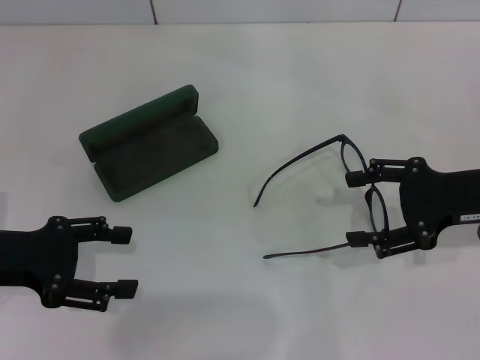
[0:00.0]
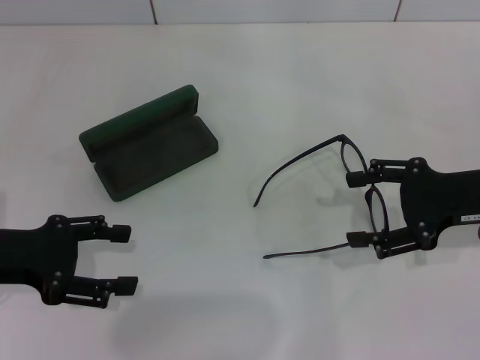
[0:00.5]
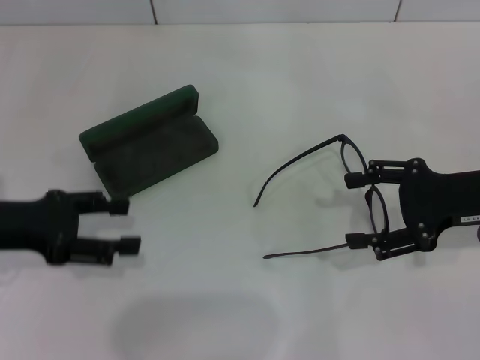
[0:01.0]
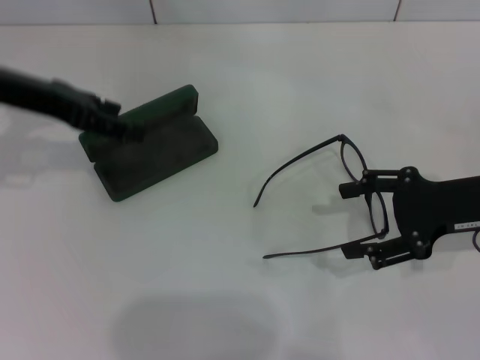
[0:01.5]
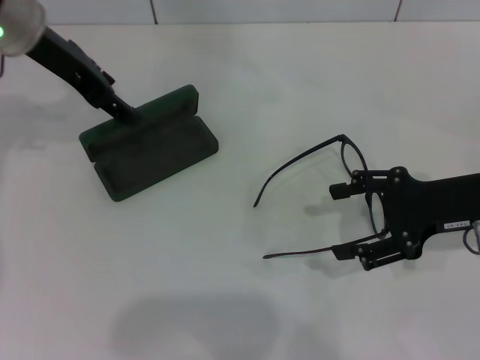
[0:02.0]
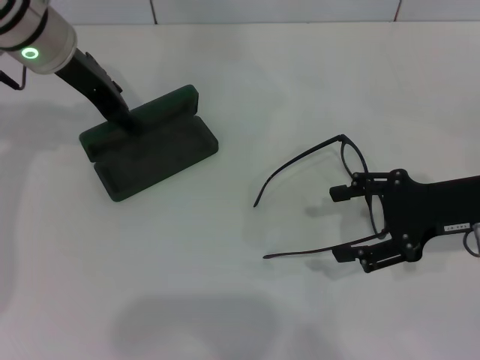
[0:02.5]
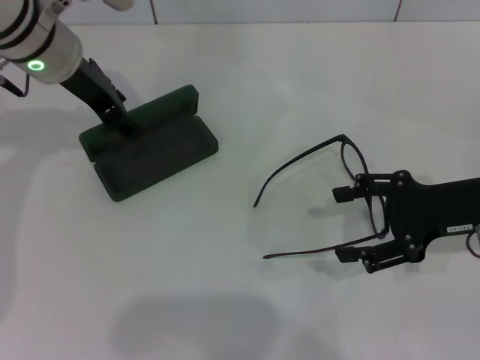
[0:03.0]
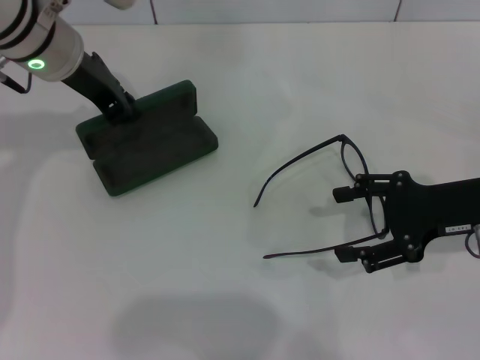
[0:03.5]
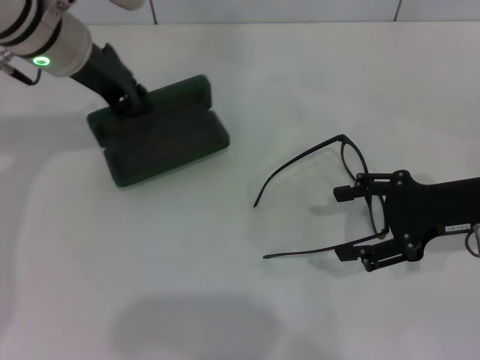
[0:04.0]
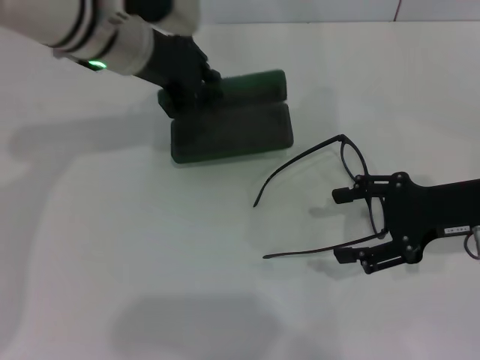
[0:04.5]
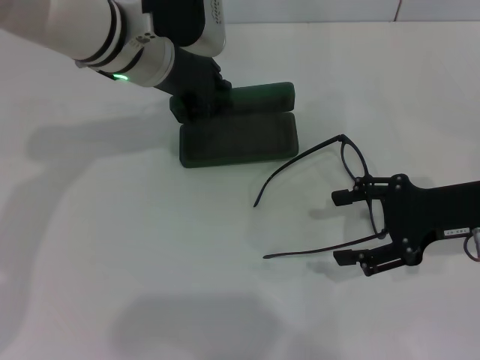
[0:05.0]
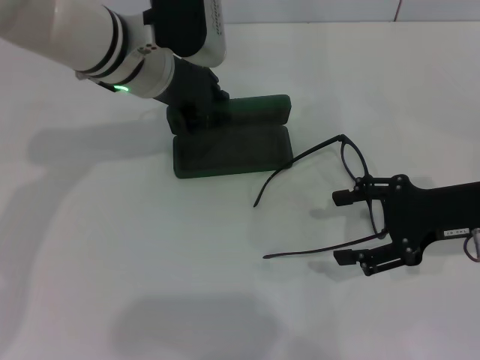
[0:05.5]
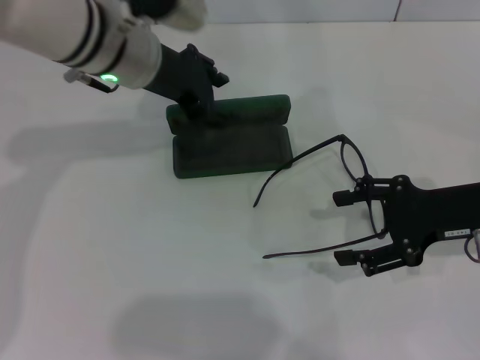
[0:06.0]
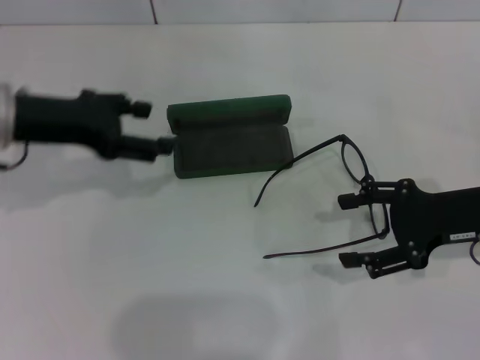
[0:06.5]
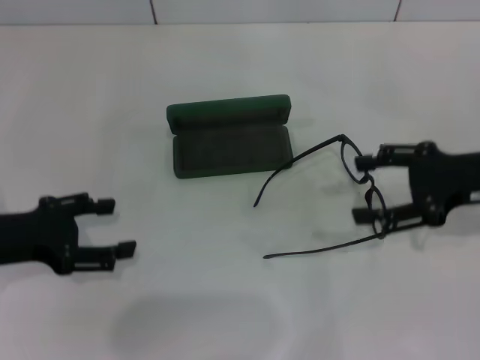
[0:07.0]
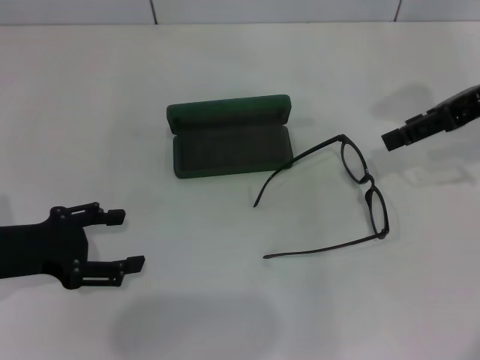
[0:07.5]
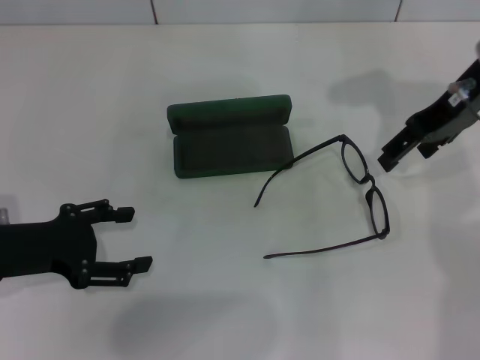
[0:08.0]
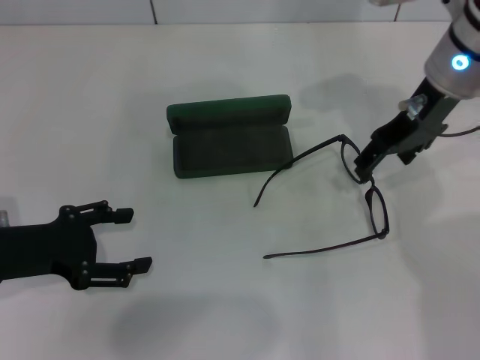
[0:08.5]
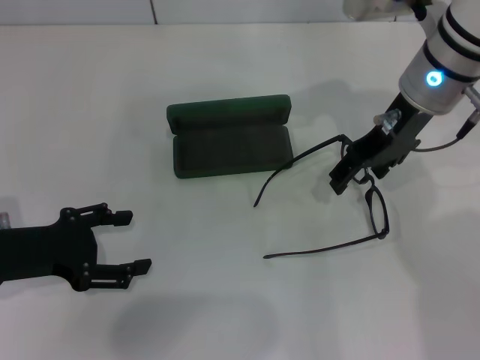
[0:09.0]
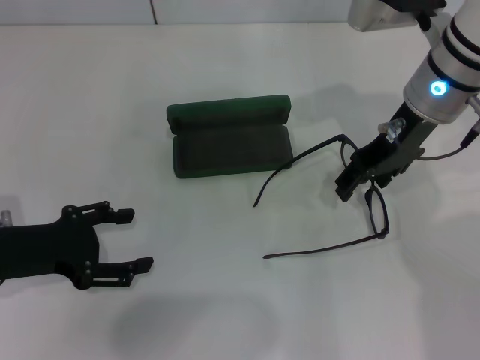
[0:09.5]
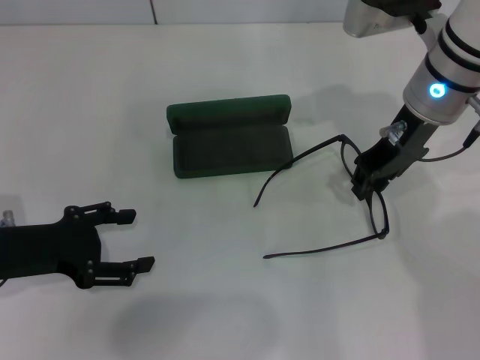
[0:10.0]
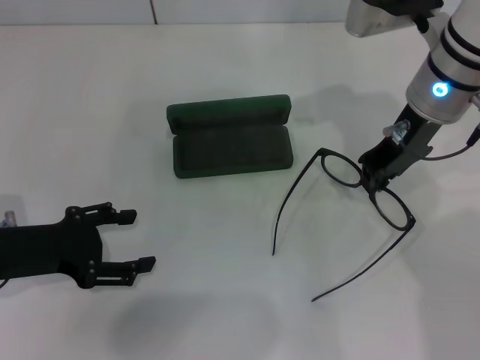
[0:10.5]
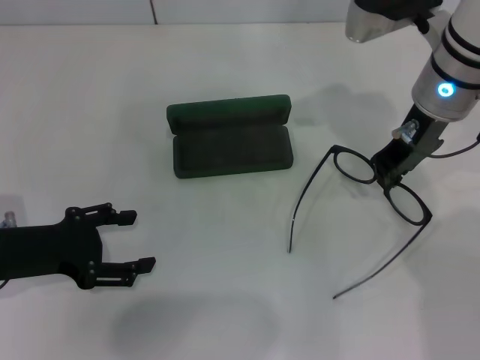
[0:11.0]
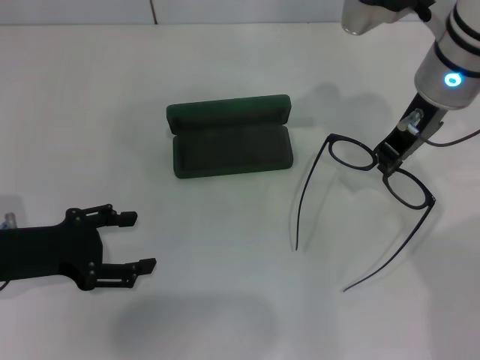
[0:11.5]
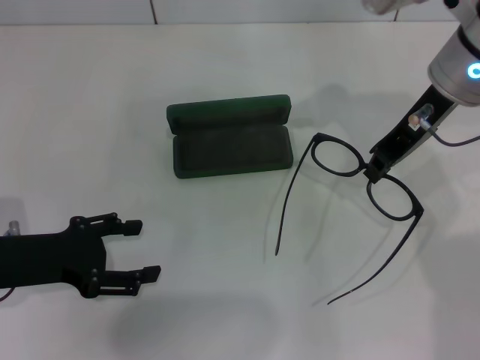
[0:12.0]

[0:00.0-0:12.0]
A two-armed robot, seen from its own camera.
Step, 0:00.0 to 0:03.0: Grab the glasses case with your left hand.
Step, 0:03.5 to 0:05.5: Place the glasses case in the center of the table with your left hand.
Step, 0:06.0 to 0:10.5: Grab the eyeglass frame with your right hand.
0:00.0 to 0:02.0: The left gripper heads forward, upward and to the right, covering roughly 25 cm.
0:02.0 to 0:04.0: The left gripper closes its fingers.
0:06.0 to 0:08.0: The left gripper heads to the left, backward and downward, covering some 25 cm, and opens its fingers. The right gripper heads upward, forward and to the left, covering approximately 15 cm.
0:08.0 to 0:10.0: The right gripper travels to the left by some 5 cm, and closes up.
0:10.0 to 0:12.0: The right gripper closes.

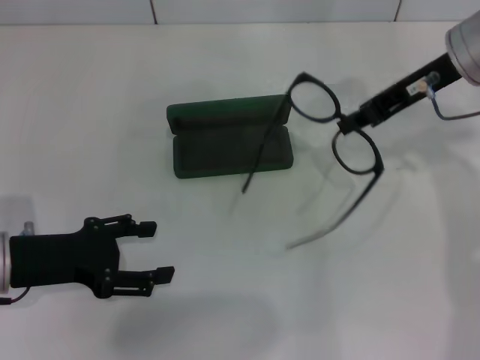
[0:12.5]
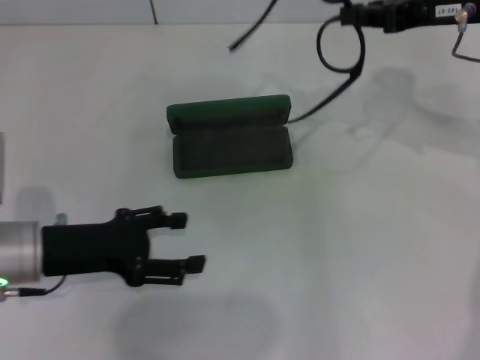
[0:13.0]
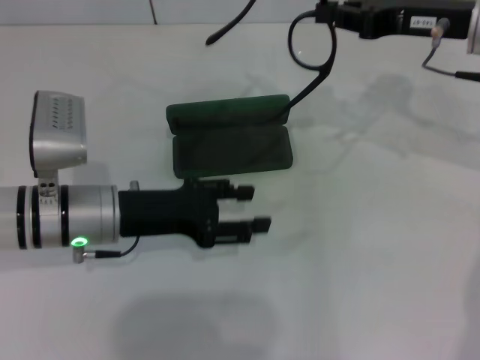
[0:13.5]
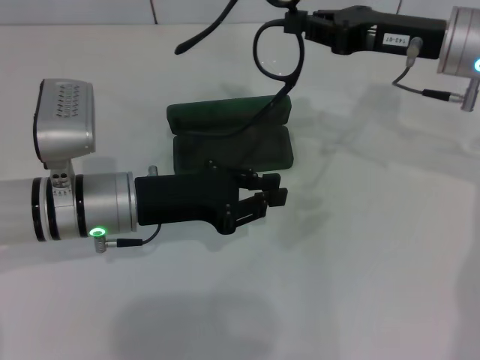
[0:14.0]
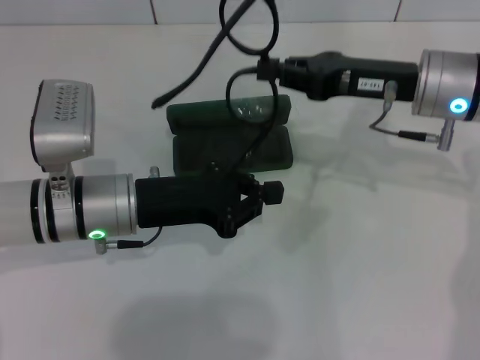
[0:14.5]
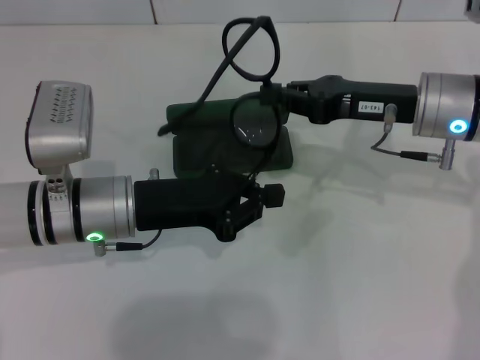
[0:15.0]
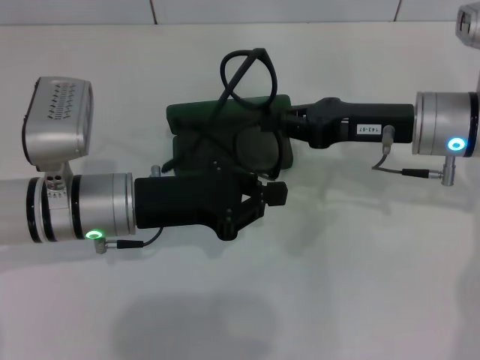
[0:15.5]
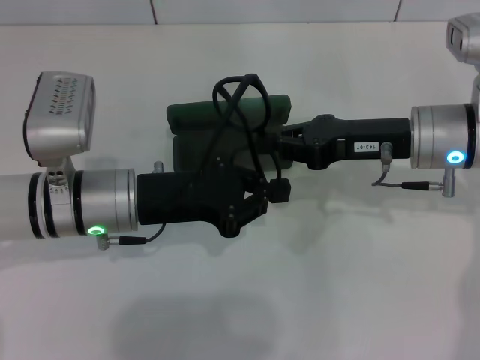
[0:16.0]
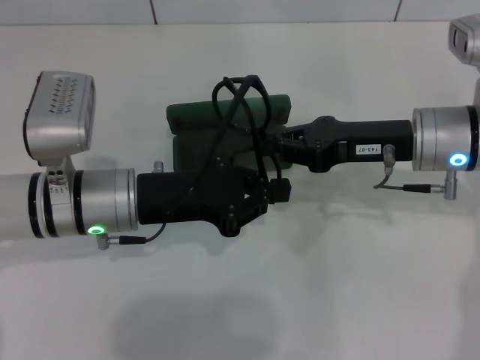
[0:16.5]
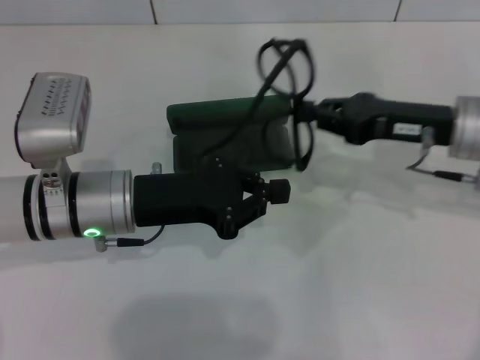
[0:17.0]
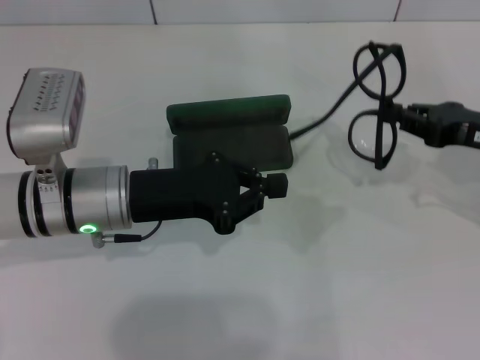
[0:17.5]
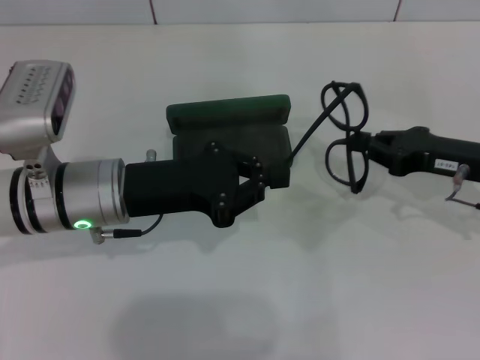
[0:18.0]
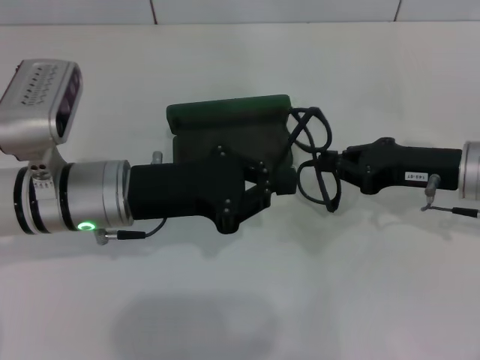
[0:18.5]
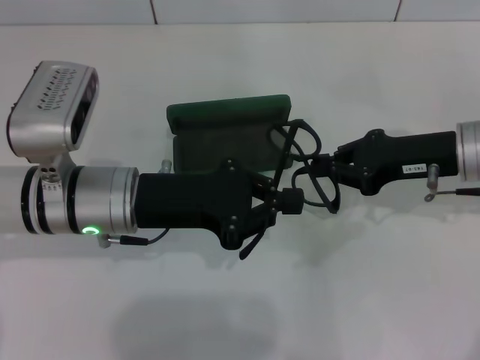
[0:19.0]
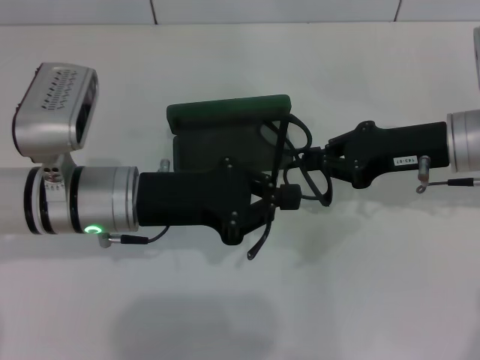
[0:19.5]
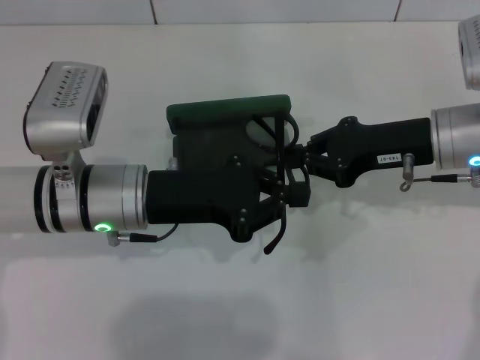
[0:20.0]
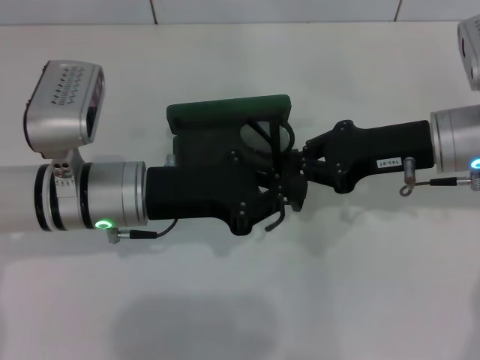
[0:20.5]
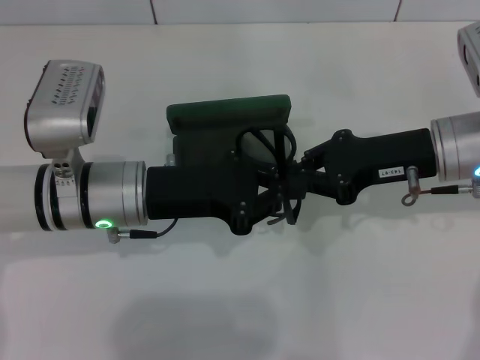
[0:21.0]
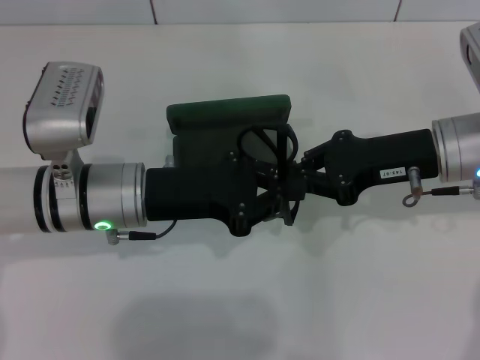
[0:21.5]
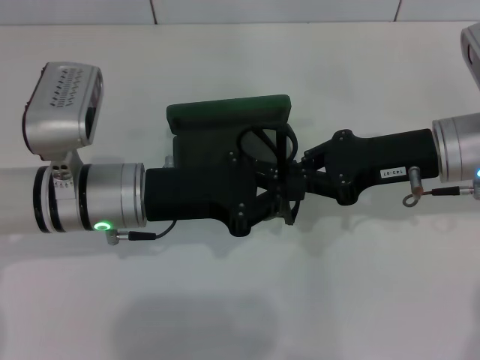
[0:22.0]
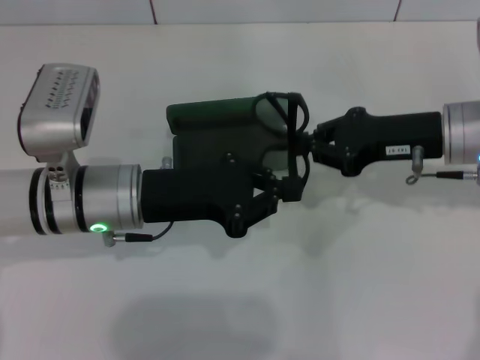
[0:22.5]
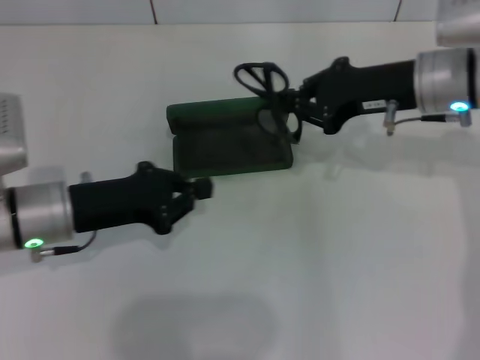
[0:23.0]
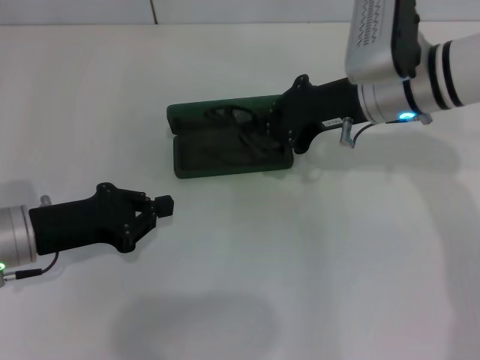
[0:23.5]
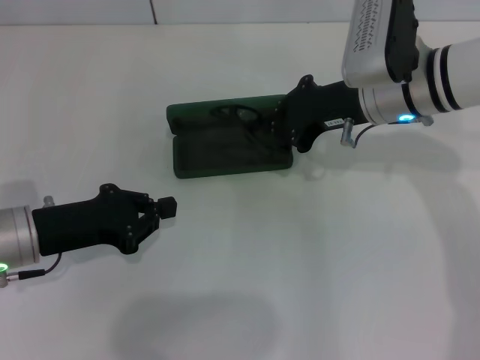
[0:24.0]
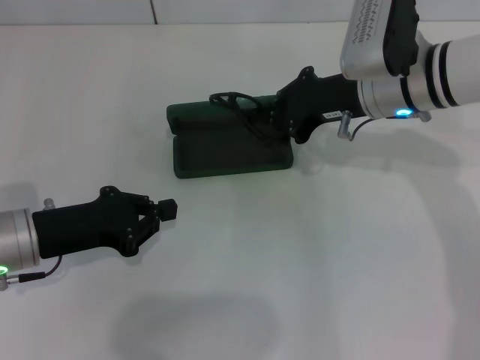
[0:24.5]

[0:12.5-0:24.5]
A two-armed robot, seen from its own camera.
Step, 0:12.5 to 0:22.0: Fold the frame with your left hand.
0:12.5 to 0:14.5: The right gripper heads downward, covering approximately 5 cm, while the left gripper shifts approximately 10 cm to the right and forward, and closes up.
0:16.5 to 0:18.5: The right gripper travels to the right by approximately 5 cm.
0:18.5 to 0:20.5: The right gripper ends up about 5 cm from where it was.
0:20.5 to 0:22.5: The grippers make only small movements.
0:22.5 to 0:24.5: Both grippers move to the left, some 10 cm.

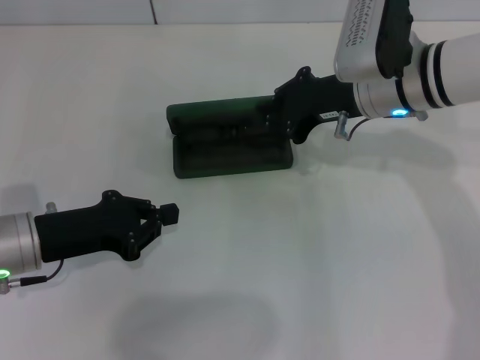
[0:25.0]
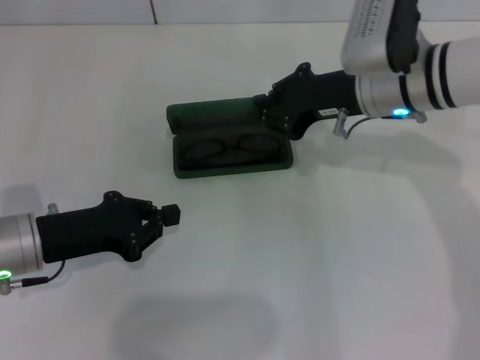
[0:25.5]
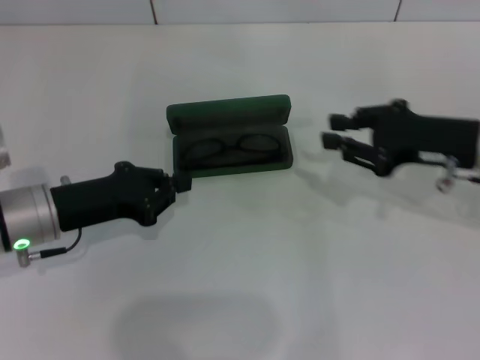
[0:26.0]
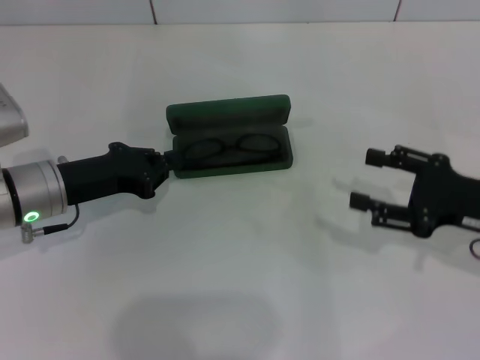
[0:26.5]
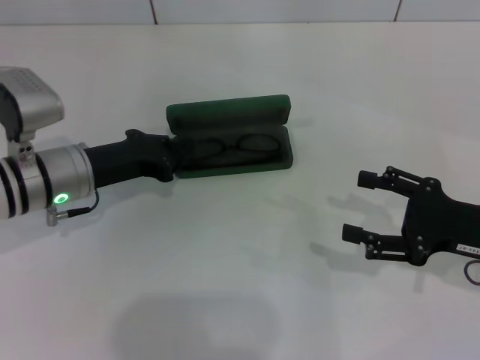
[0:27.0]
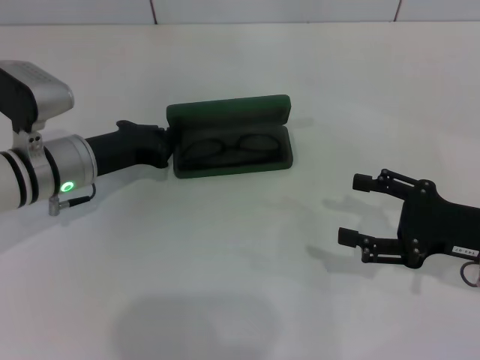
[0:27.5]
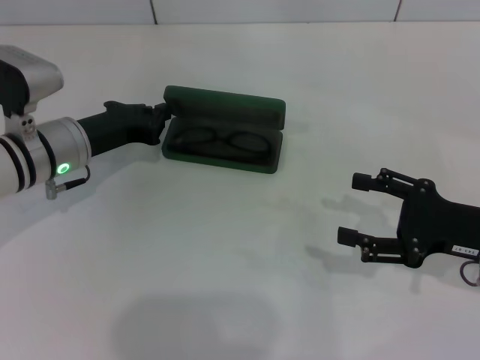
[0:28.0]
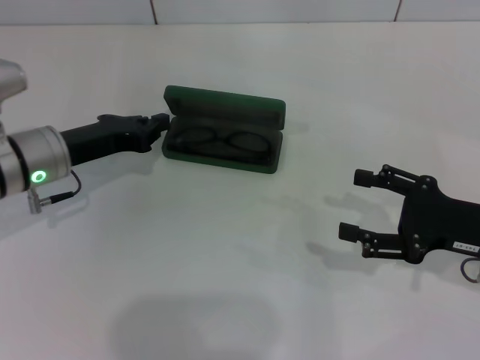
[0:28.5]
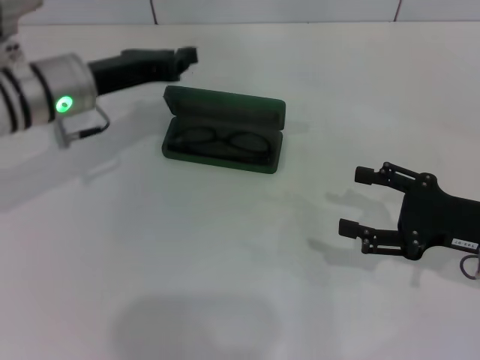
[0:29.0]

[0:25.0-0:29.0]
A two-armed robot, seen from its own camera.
0:25.0 to 0:27.0: The left gripper travels forward by approximately 5 cm; the right gripper is displaced to the right, backward and downward by about 20 cm, and opens up.
0:27.0 to 0:29.0: The left gripper is displaced upward by some 5 cm.
